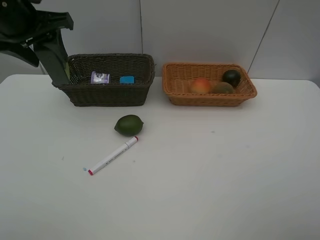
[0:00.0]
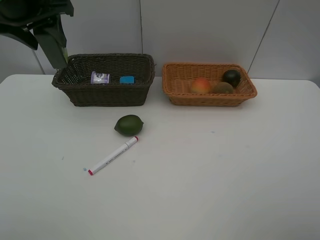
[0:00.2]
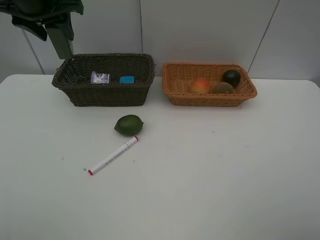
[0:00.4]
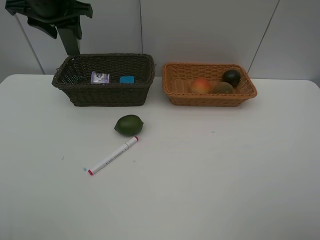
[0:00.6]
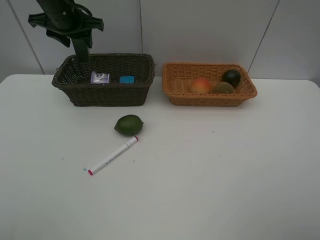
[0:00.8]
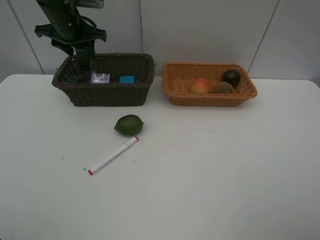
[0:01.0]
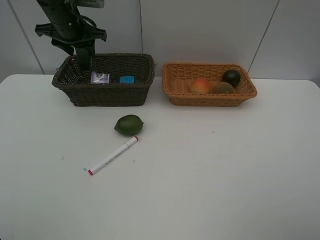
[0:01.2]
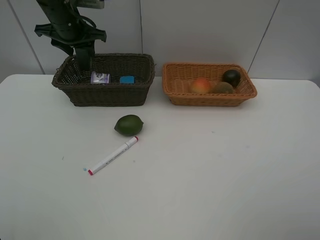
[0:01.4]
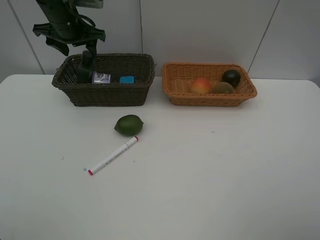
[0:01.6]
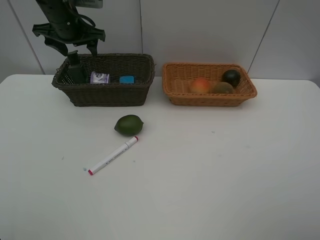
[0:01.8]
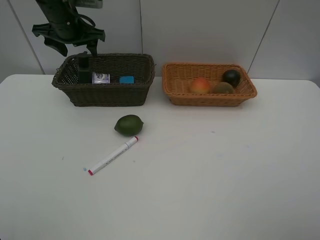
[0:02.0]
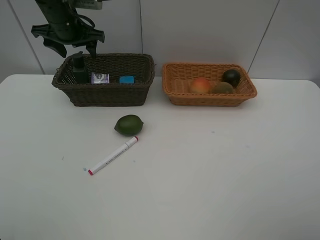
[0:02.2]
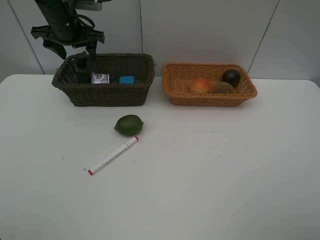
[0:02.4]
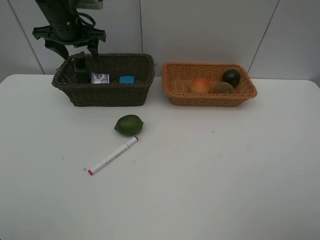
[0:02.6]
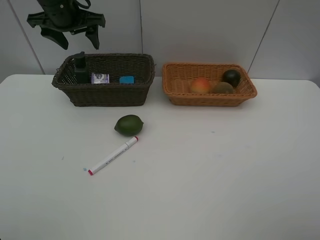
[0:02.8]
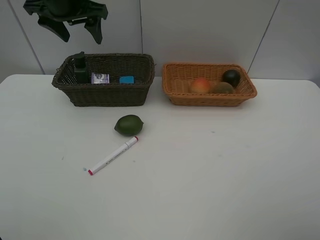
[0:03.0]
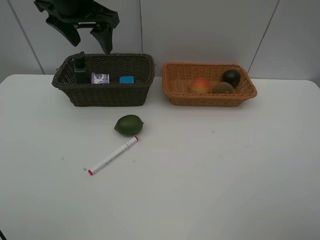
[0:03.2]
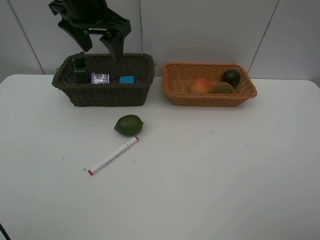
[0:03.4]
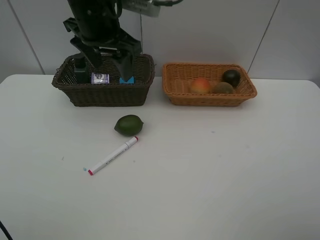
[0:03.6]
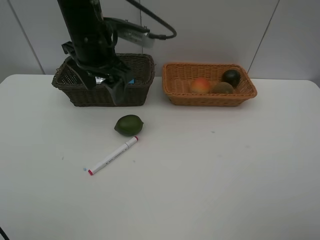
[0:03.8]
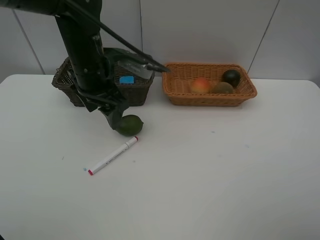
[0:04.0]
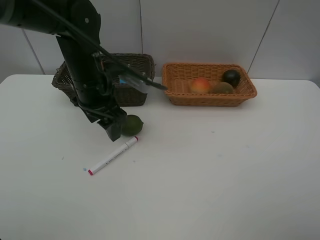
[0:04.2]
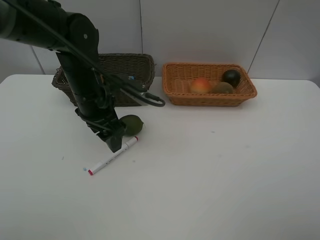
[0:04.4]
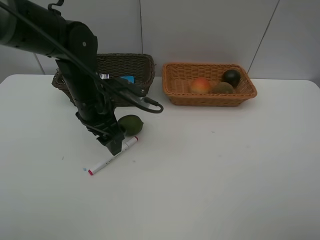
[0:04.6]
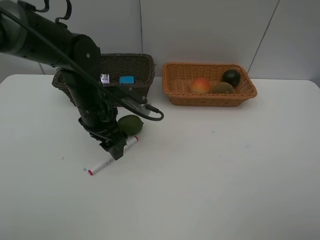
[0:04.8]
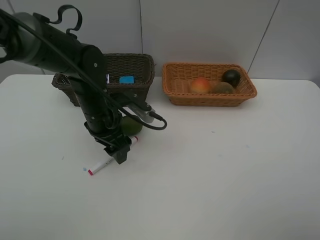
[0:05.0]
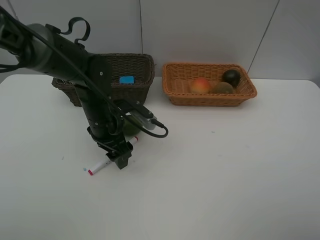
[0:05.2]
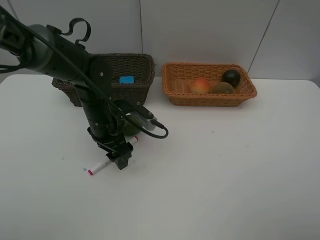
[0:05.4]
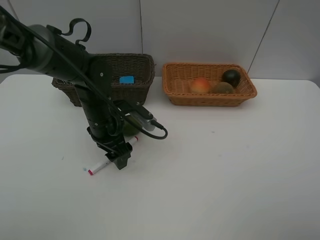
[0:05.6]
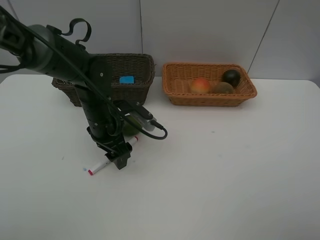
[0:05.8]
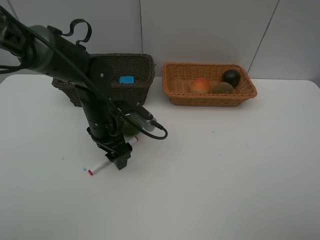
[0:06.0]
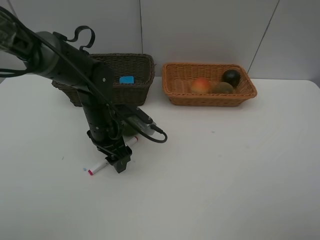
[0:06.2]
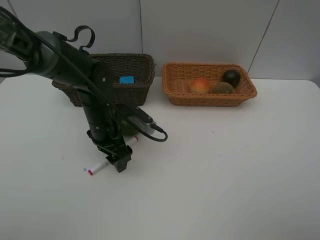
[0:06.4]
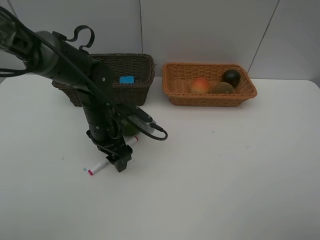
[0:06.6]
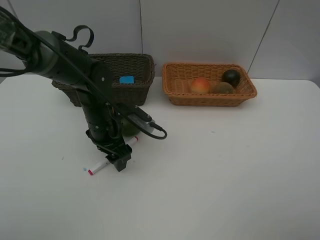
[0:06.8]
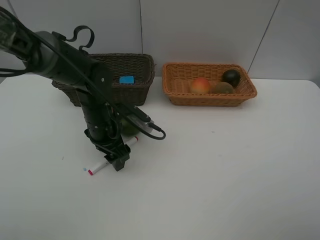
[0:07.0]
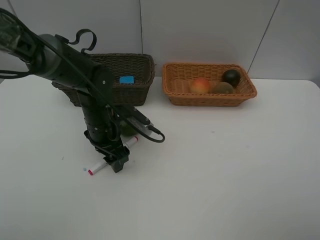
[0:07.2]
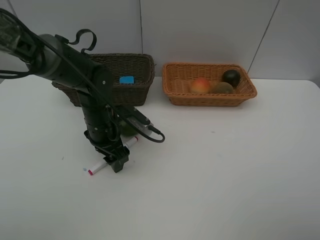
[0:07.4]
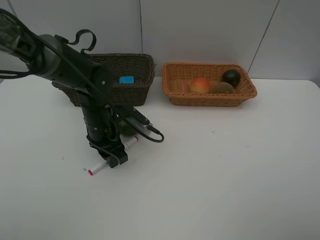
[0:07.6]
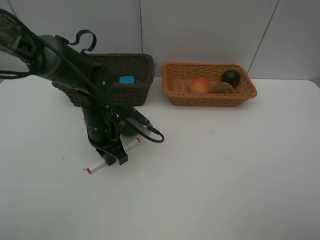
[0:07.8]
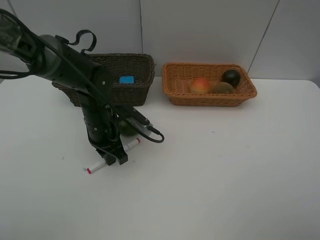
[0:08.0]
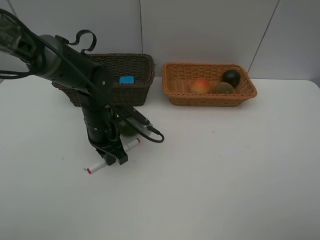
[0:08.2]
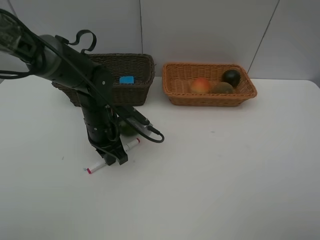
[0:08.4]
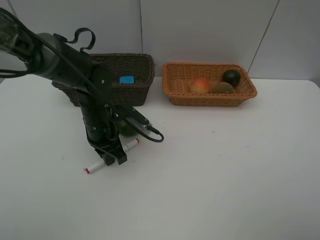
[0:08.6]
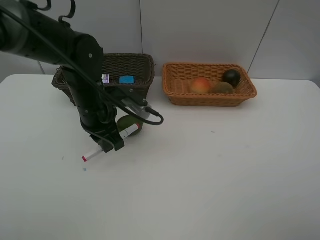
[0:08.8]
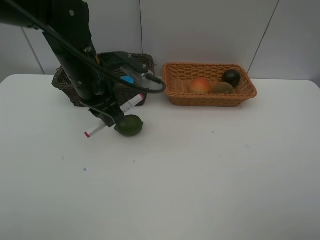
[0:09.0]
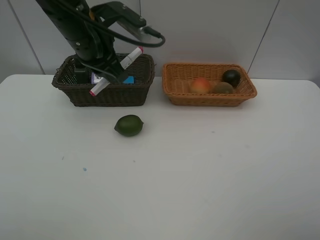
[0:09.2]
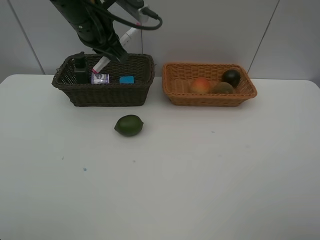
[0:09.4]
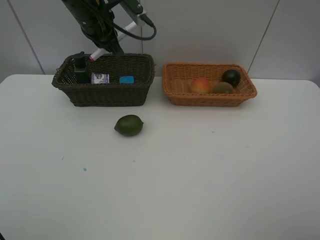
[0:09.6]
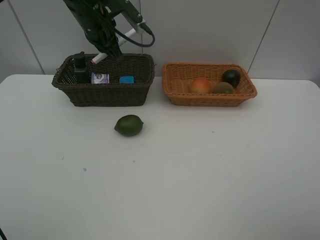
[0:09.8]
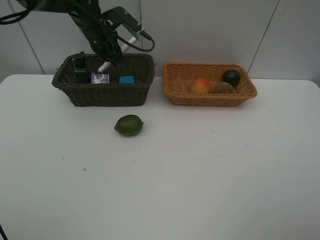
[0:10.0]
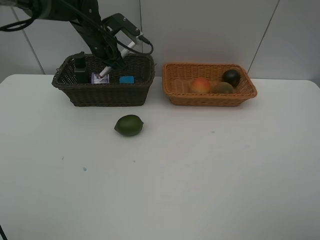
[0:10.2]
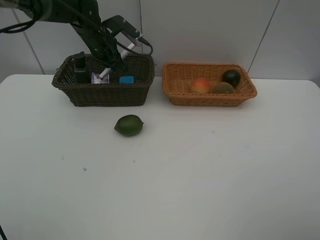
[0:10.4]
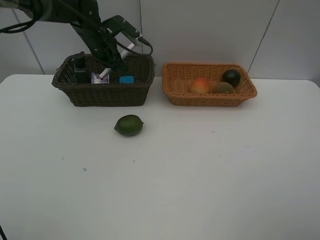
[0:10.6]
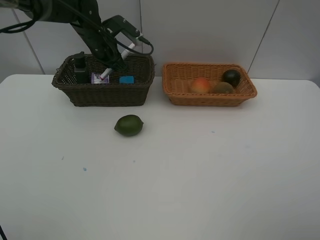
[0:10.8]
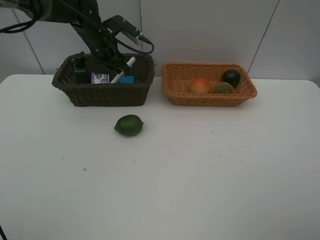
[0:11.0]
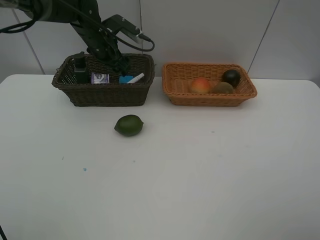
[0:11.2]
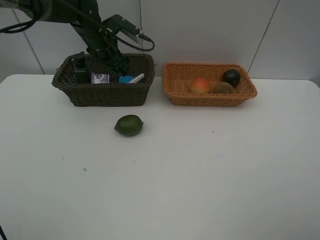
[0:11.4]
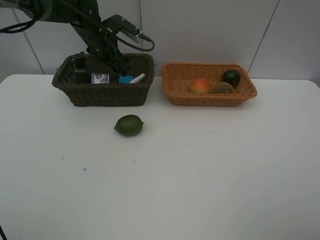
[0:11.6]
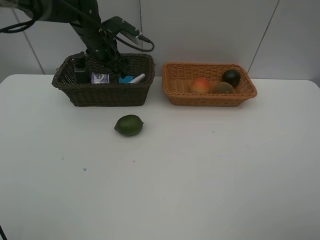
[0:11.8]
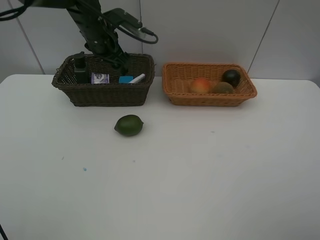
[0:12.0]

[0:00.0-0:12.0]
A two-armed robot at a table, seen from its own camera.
Task of the whole recording: Place multiple objects separately in different baskets.
Step, 0:00.0 to 0:02.0: Place the hard facial cleanser in the dark basket with left gripper.
Step, 0:02.2 to 0:08.6: Pick up the red marker with left gripper.
Step, 0:08.8 to 0:11.4: Place the red marker in the dark basket with left gripper.
0:00.0 to 0:01.6: The left gripper is displaced forward and downward by about 15 cm.
0:01.6 to 0:03.0: The left gripper shifts some 10 cm upward and backward.
0:03.0 to 0:04.4: The left gripper is displaced downward and backward by roughly 20 cm.
0:04.4 to 0:06.0: The left gripper moves downward, roughly 5 cm.
0:06.0 to 0:07.6: The left gripper closes up.
0:07.6 to 0:09.0: The left gripper travels upward by some 15 cm.
0:09.0 to 0:10.4: The left gripper is displaced forward by approximately 15 cm.
0:10.4 to 0:12.0: The left gripper opens.

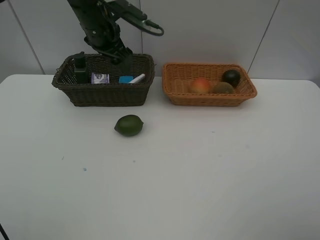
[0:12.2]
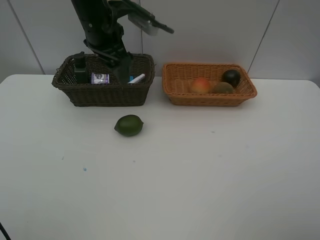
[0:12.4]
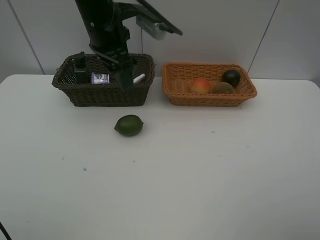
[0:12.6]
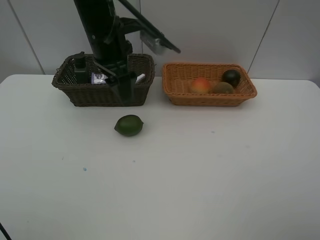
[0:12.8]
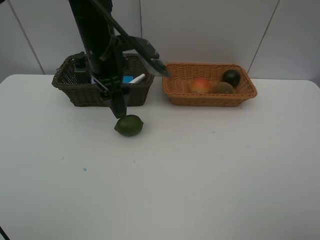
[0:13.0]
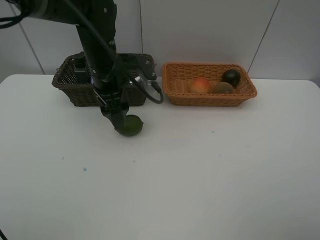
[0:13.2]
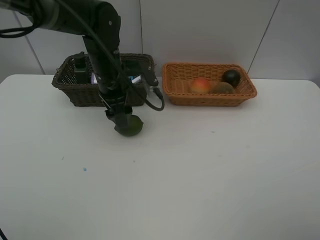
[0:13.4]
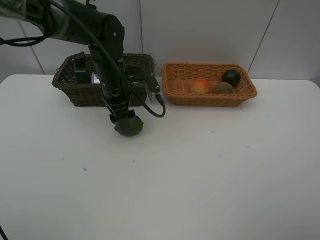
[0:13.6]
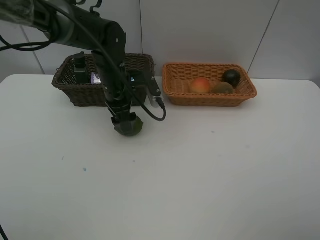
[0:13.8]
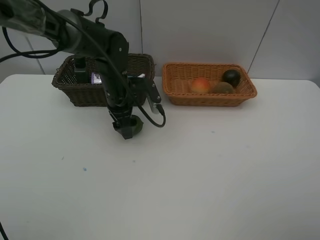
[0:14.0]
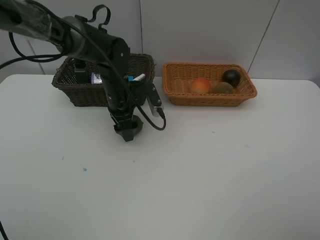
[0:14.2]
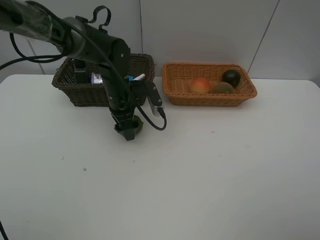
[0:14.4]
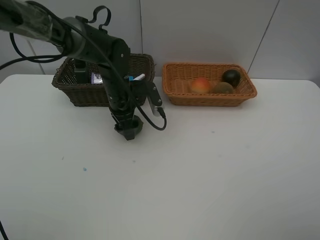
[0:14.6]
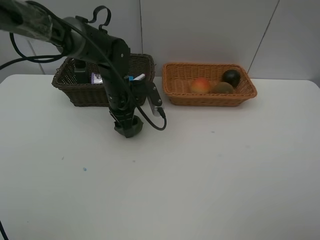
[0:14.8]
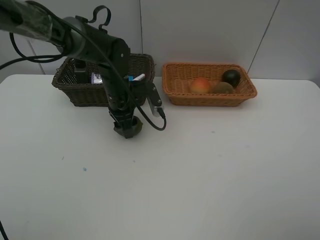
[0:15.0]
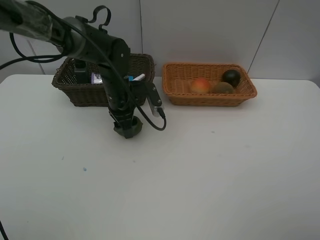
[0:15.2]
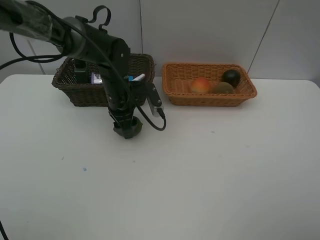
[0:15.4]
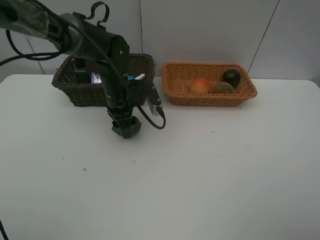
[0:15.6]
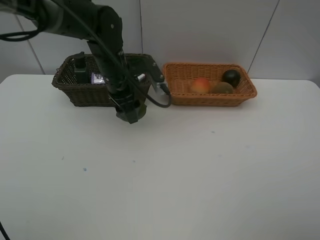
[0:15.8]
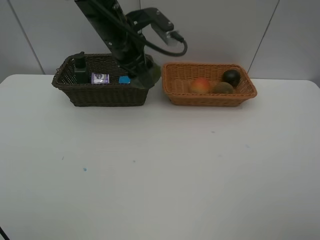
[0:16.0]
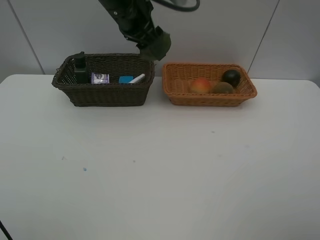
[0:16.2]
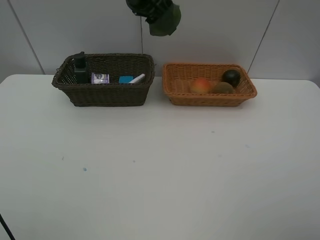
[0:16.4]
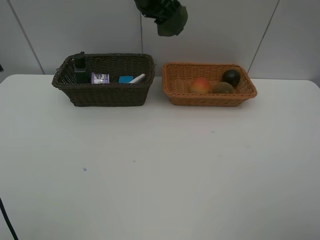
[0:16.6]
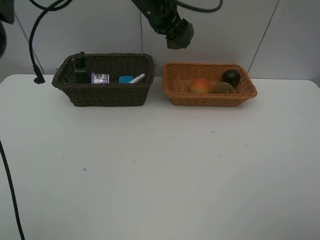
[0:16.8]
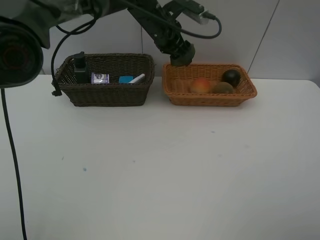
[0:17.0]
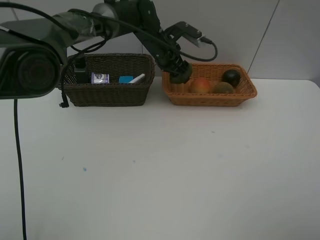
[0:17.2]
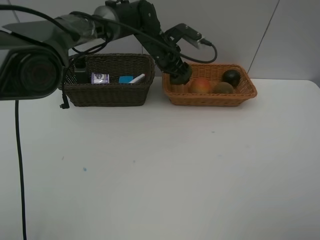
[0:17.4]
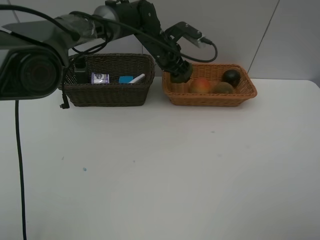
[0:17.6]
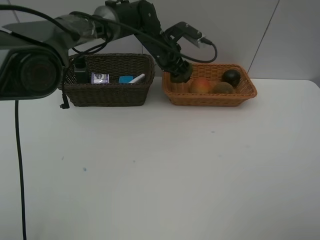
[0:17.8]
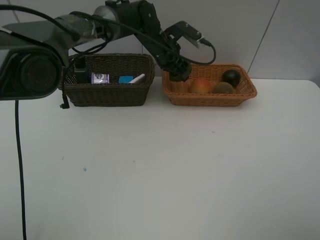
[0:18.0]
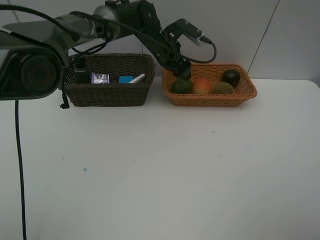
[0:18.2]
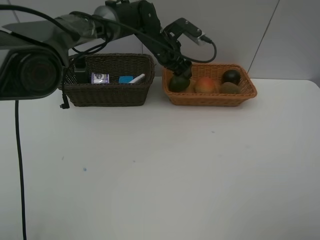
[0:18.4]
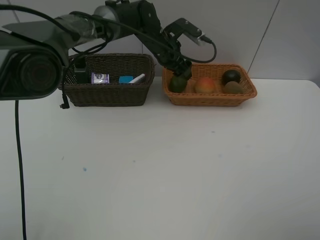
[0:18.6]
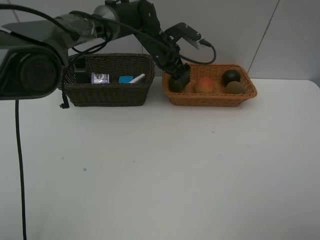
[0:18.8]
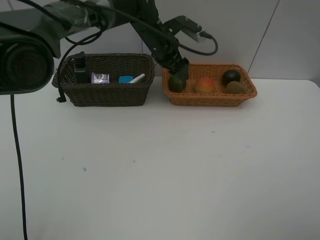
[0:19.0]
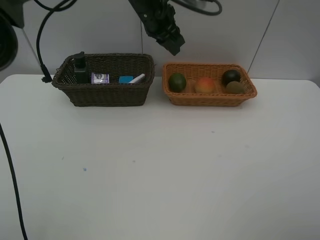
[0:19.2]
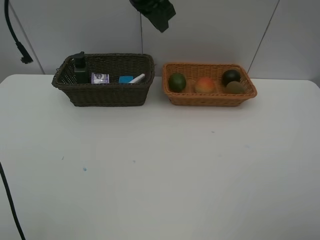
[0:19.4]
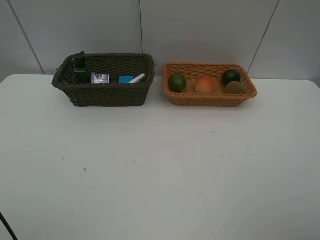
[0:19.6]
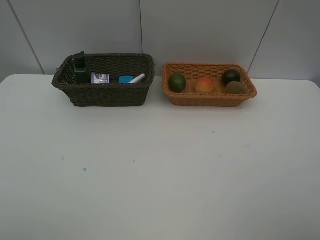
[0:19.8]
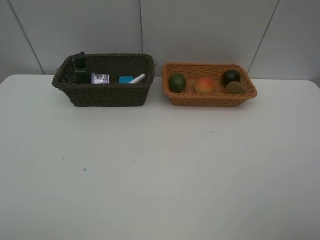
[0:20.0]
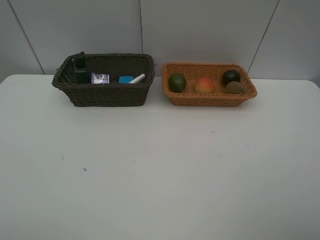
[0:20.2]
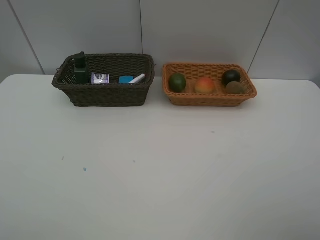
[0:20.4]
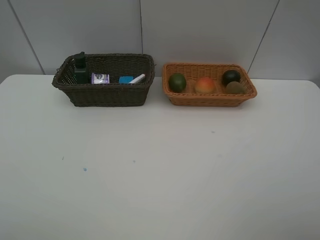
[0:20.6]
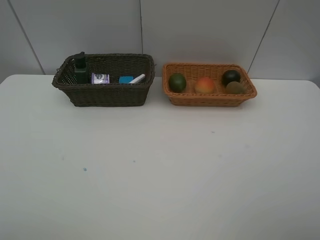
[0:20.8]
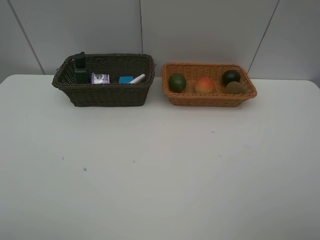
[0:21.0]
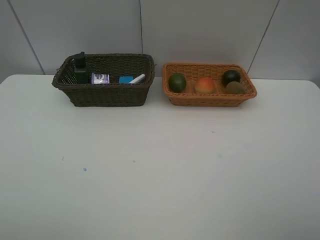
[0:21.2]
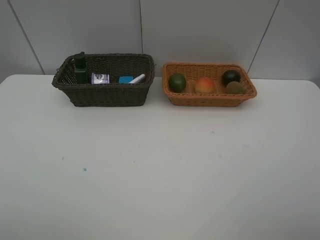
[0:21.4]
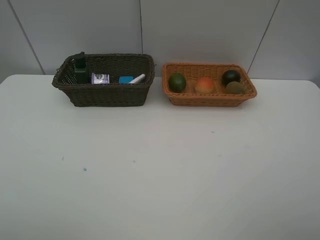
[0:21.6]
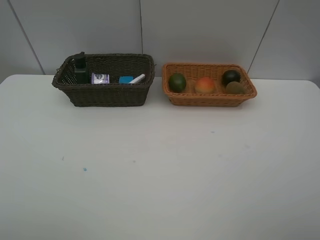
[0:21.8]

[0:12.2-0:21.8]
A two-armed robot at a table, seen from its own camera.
Task of the whole recording: Place multiple objects separately in different baskets.
Step, 0:12.2 to 0:15.8: Pick up the lime with left gripper.
Step, 0:16.0 to 0:19.0: Place the lime in the light basket with left gripper.
0:12.2 to 0:13.8: The left gripper goes about 10 cm downward and backward.
0:13.8 to 0:15.4: The grippers stay close to where they were, moving slightly.
0:15.4 to 0:17.0: The left gripper heads upward, forward and to the right, covering some 15 cm.
0:17.0 to 0:18.6: The grippers make only small movements.
0:18.6 to 0:20.2: The left gripper heads upward, backward and to the left, covering roughly 50 cm, and closes.
